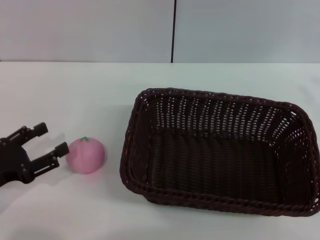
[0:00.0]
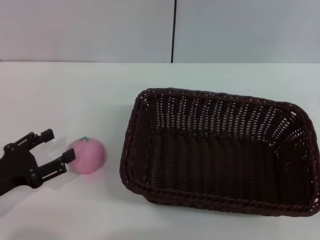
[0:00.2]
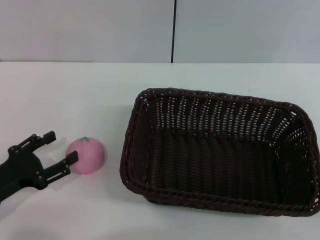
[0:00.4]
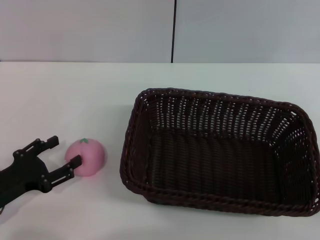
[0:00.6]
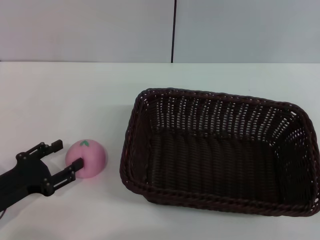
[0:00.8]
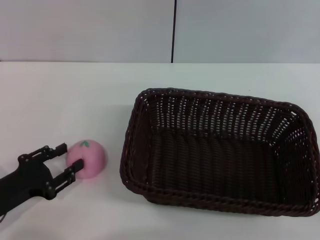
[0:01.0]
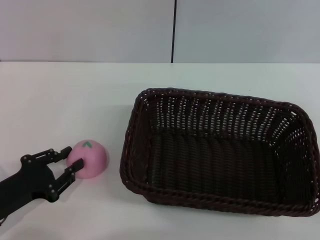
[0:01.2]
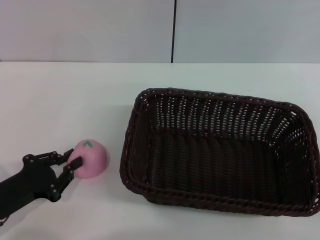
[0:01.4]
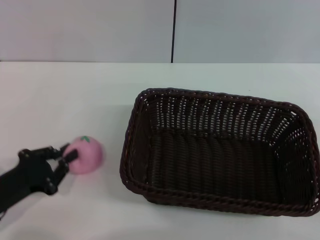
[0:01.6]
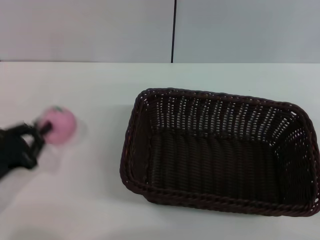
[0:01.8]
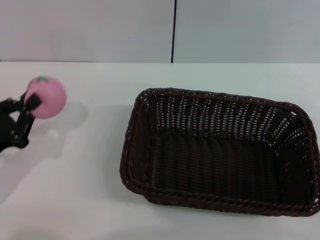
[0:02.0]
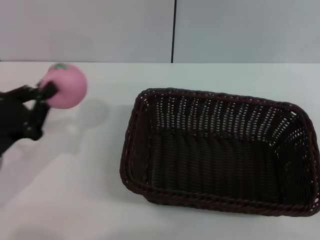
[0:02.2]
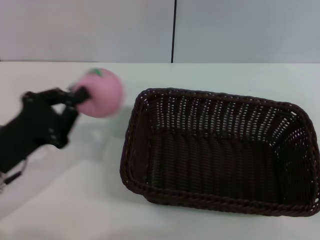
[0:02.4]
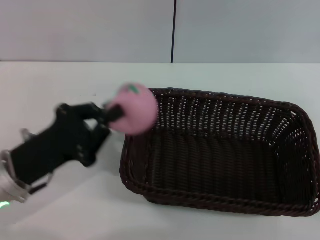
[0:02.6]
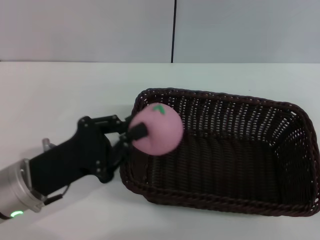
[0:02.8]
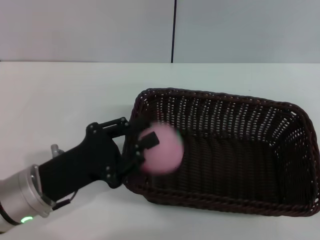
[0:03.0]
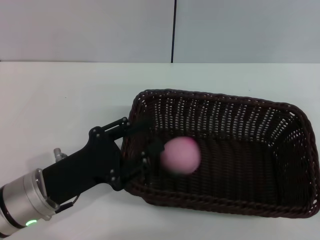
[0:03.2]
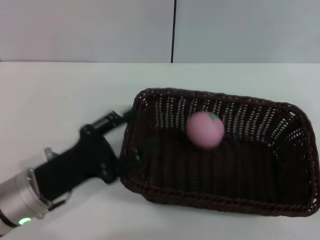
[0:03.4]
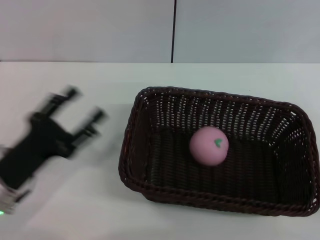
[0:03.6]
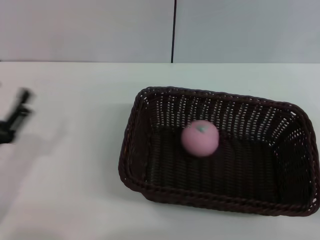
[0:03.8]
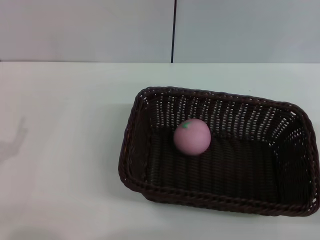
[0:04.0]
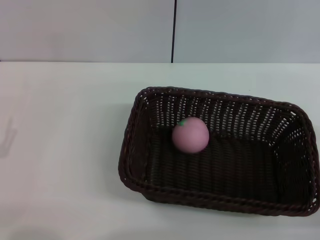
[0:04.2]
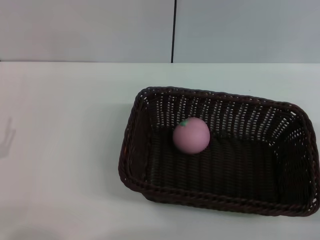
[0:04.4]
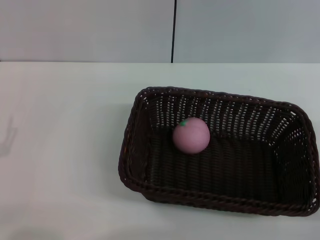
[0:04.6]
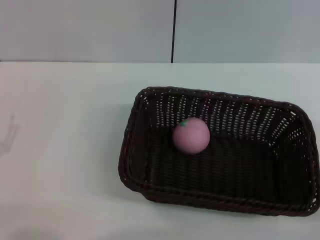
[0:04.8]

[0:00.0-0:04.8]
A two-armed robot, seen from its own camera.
Step, 0:00.0 to 0:02.0: Pick up the peach with the left gripper.
Step, 0:02.2 to 0:04.0: Place the peach into the basket with the left gripper.
0:00.0 to 0:01.6: The left gripper closes its fingers.
0:01.6 to 0:03.2: The left gripper moves to the right, roughly 10 cm.
0:03.2 to 0:04.8: The left gripper shifts about 10 cm to the left, and opens its fingers.
